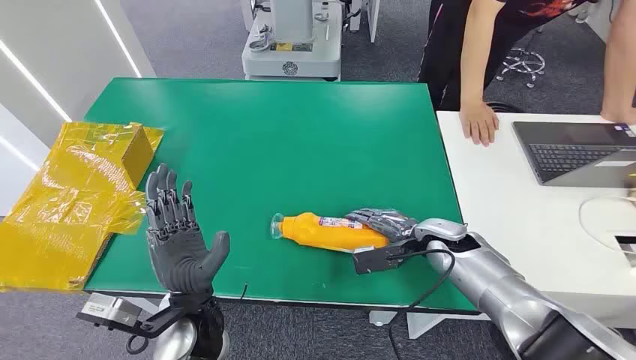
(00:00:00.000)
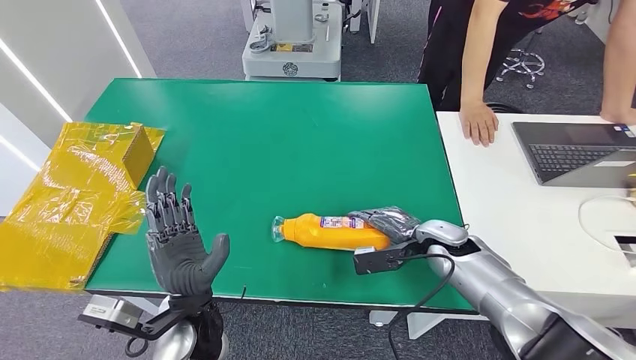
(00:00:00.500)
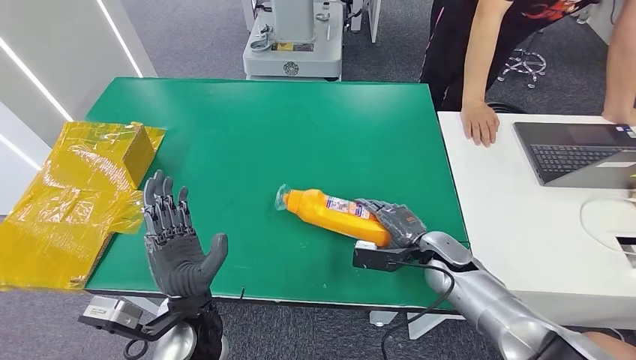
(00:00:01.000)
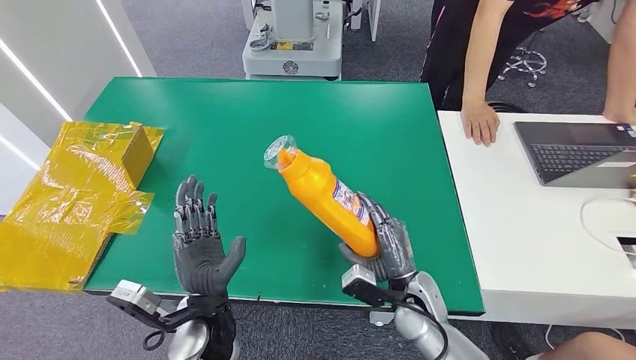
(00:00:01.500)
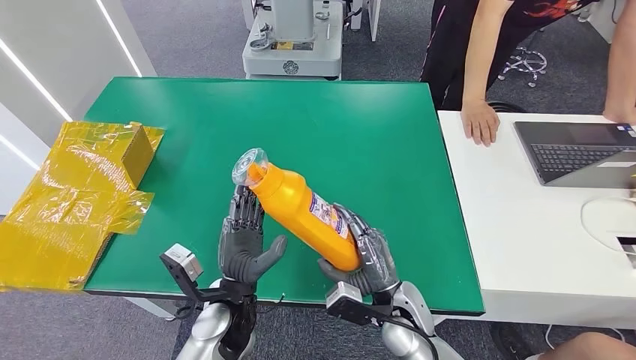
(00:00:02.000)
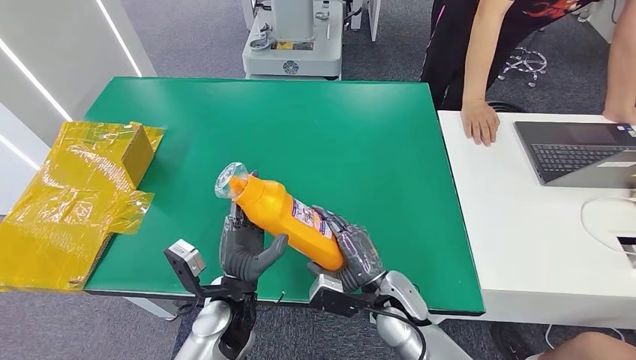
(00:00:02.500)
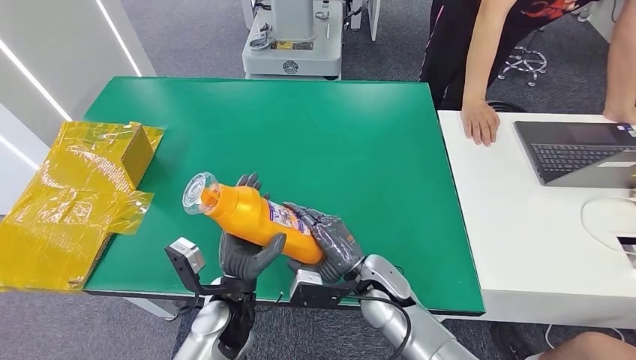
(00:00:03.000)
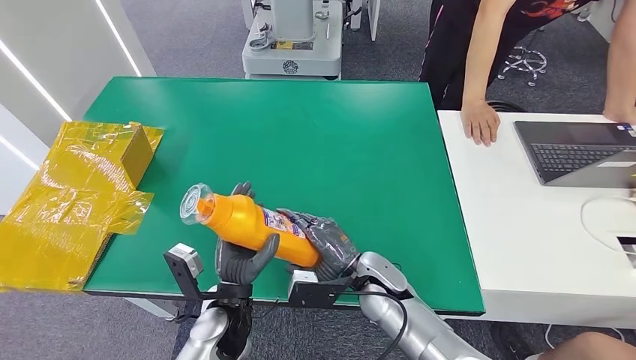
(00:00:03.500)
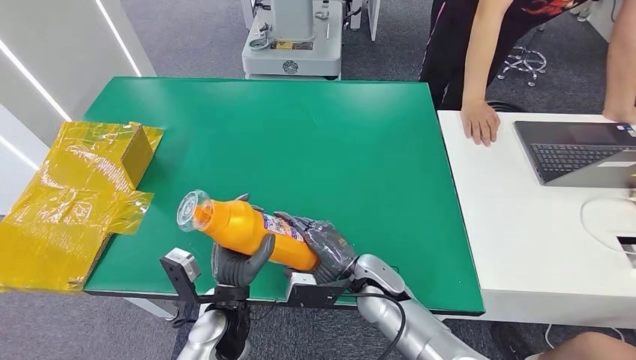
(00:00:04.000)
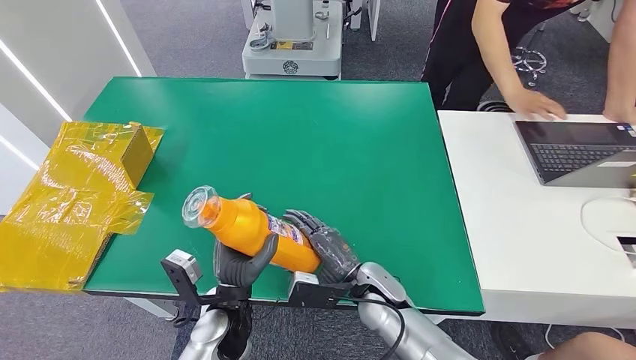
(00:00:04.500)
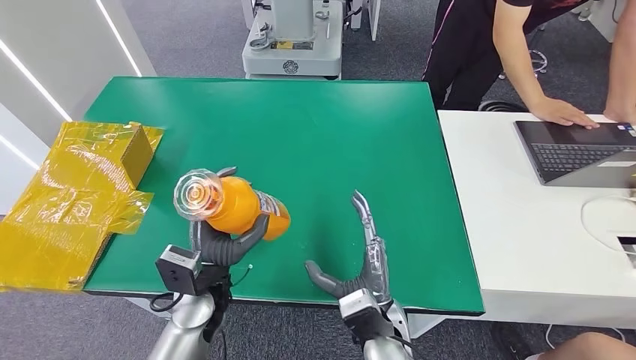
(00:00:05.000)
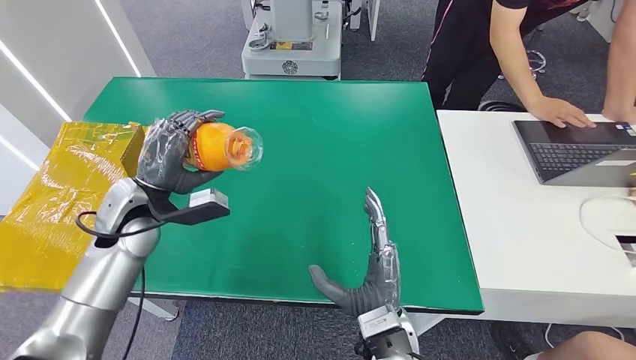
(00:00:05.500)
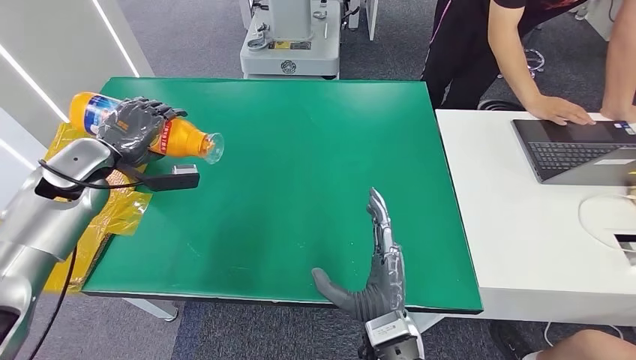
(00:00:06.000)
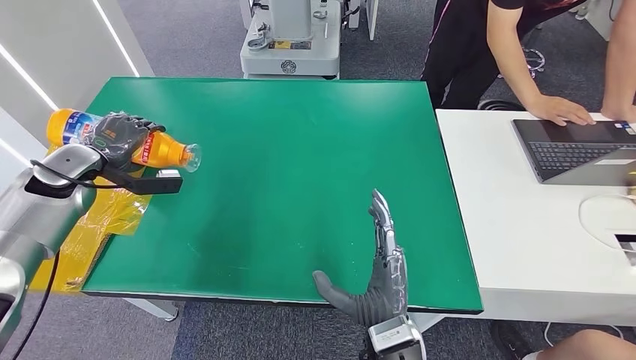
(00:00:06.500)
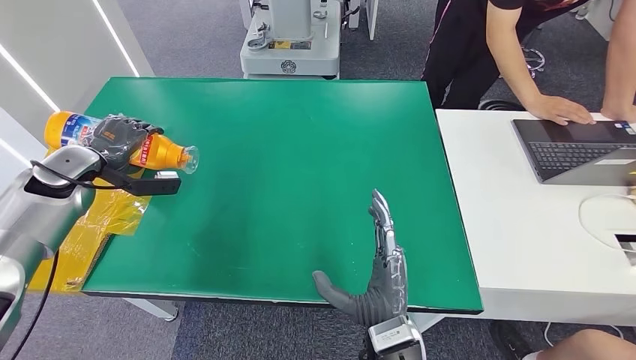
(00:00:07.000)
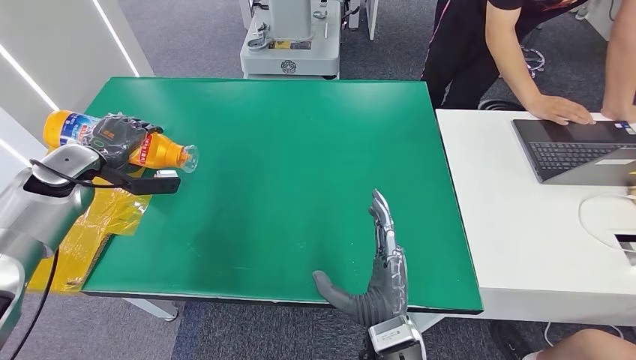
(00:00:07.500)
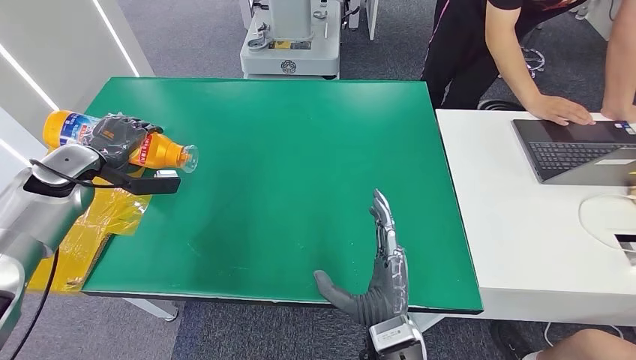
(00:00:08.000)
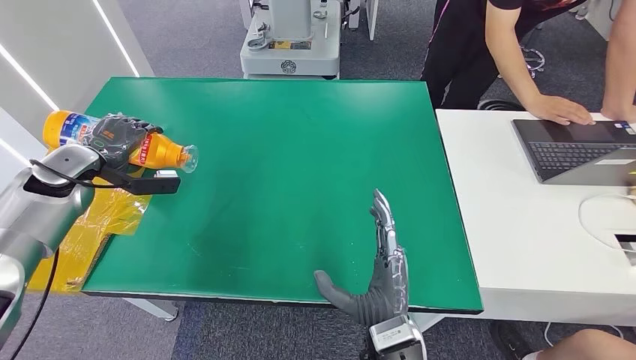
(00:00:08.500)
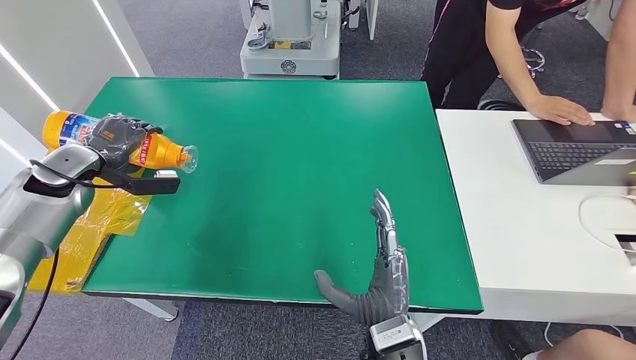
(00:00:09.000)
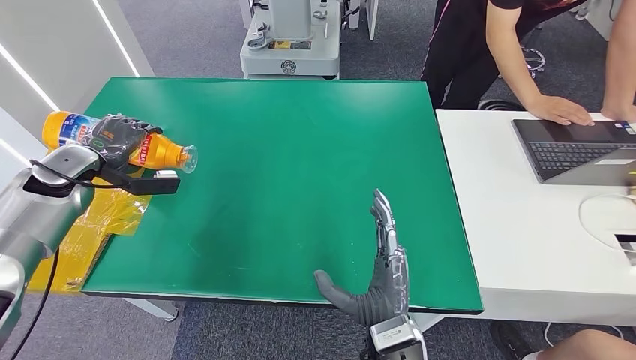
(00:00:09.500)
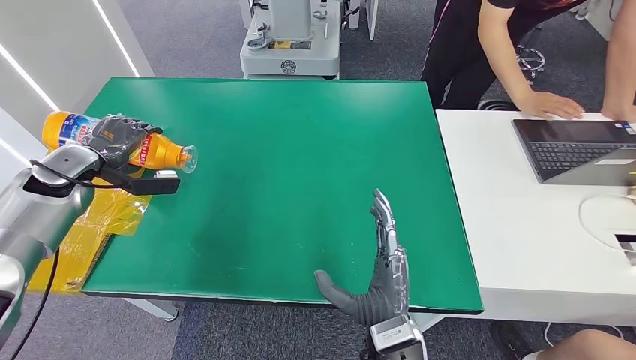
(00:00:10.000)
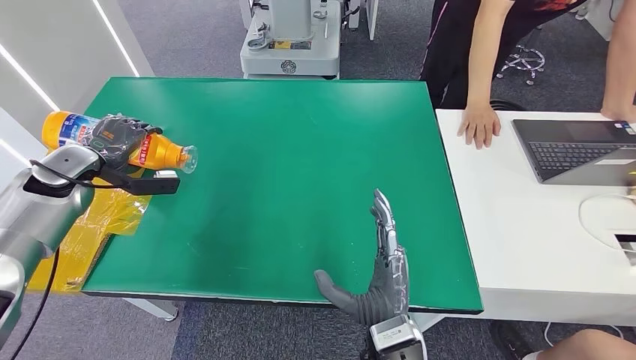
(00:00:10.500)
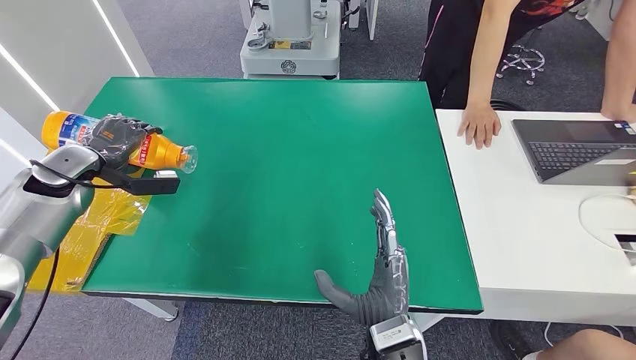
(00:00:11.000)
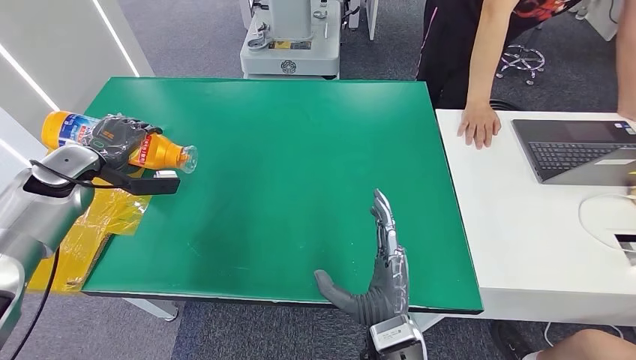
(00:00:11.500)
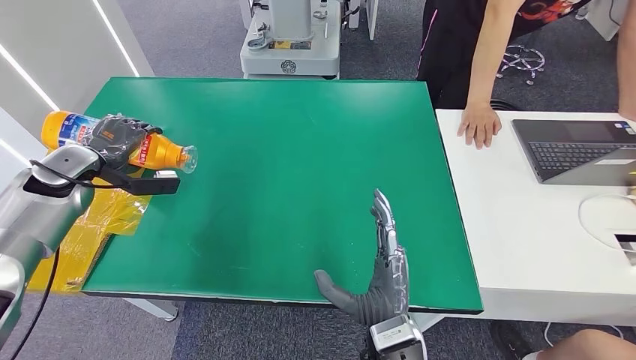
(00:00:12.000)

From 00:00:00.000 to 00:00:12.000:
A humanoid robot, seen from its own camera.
Step, from 00:00:00.000 to 00:00:03.000: Pick up the bottle from the table.
From 00:00:02.000 to 00:00:04.000: The right hand shifts by roughly 5 cm.
From 00:00:06.000 to 00:00:08.000: The left hand changes place by about 5 cm.
From 00:00:08.000 to 00:00:12.000: Both hands stay about where they are.

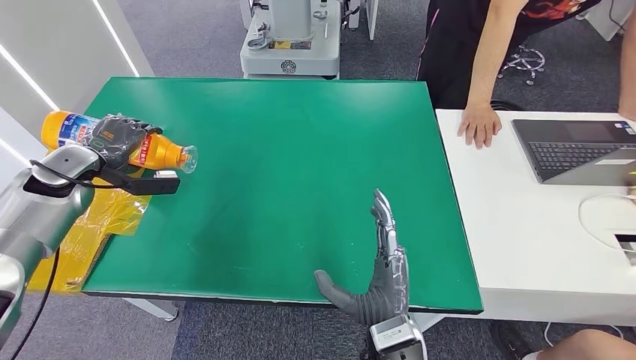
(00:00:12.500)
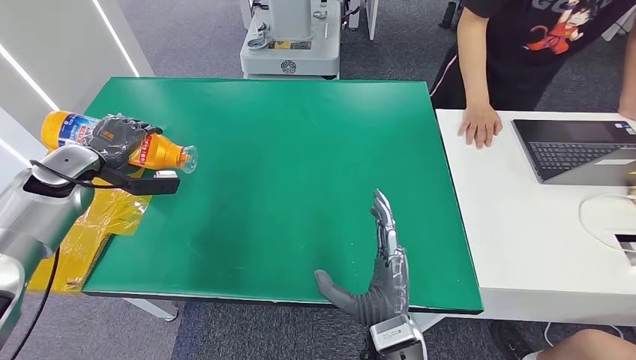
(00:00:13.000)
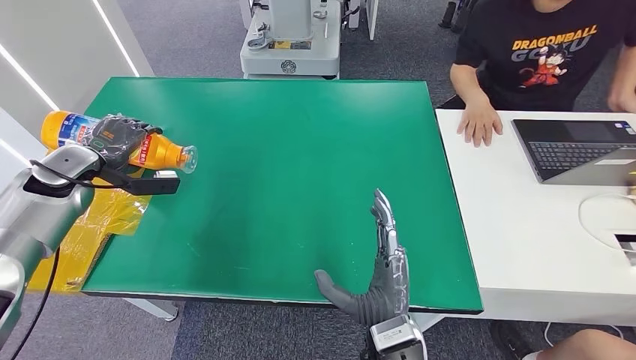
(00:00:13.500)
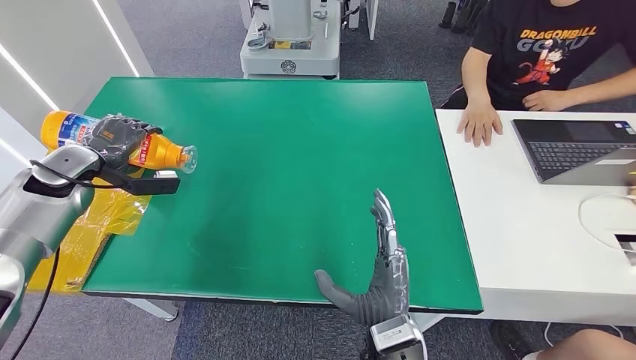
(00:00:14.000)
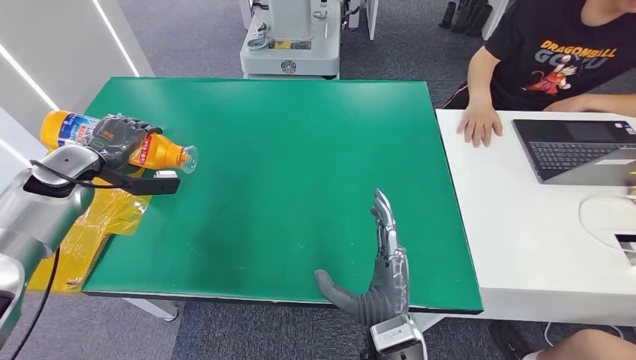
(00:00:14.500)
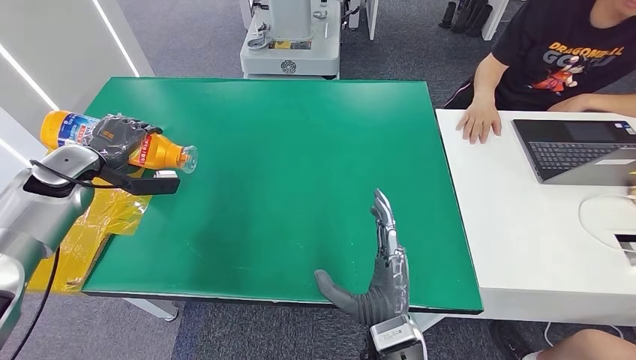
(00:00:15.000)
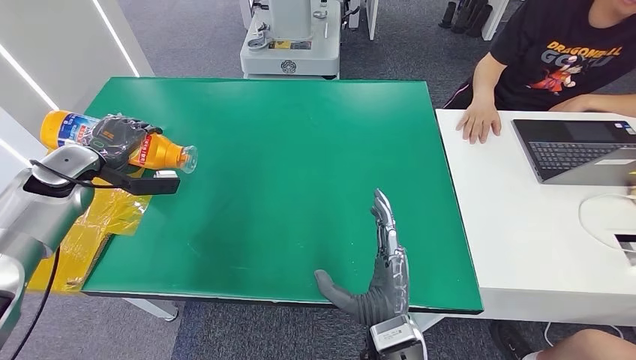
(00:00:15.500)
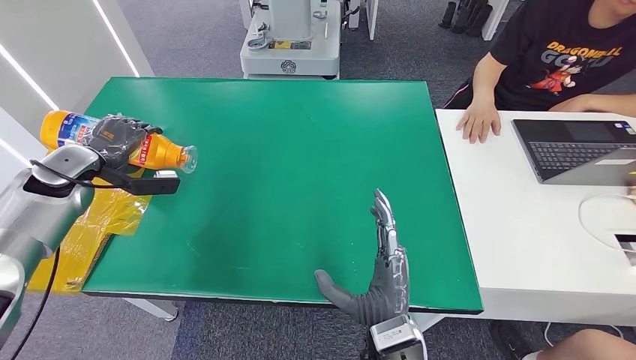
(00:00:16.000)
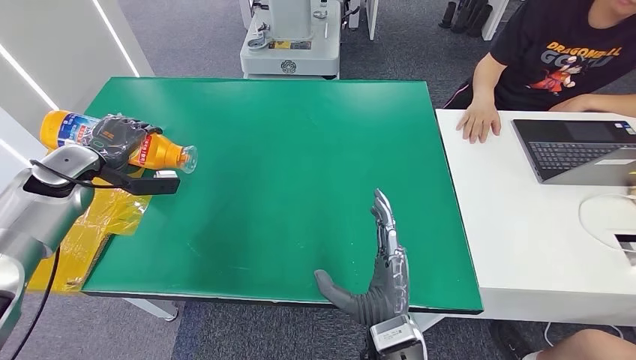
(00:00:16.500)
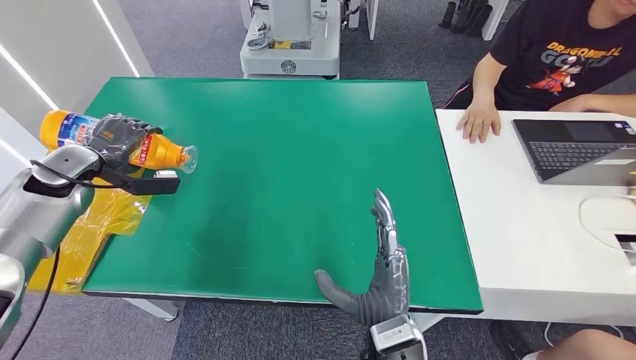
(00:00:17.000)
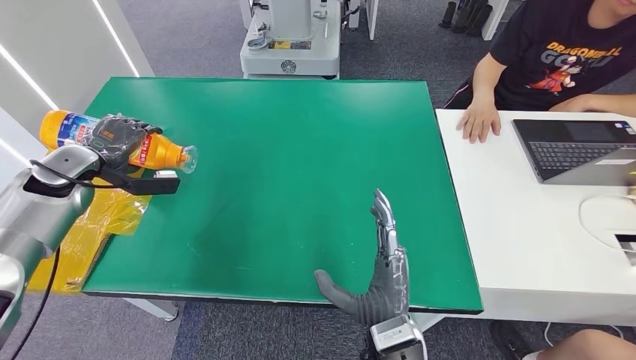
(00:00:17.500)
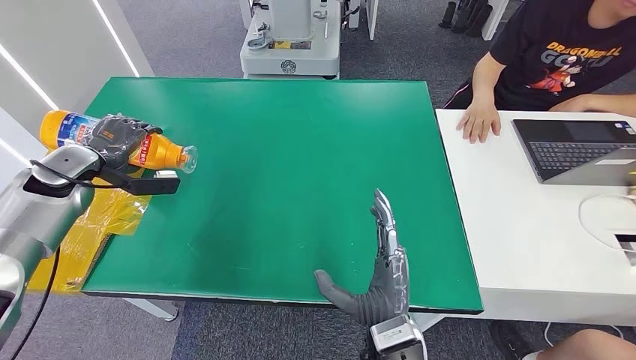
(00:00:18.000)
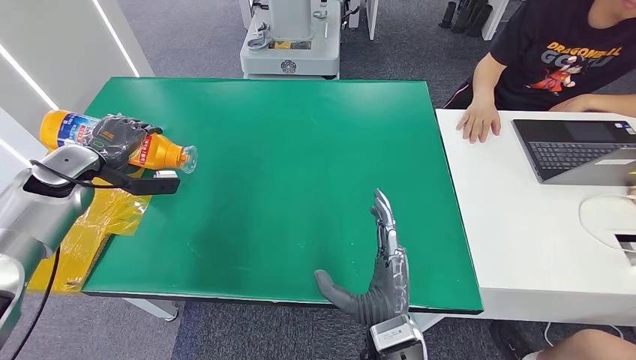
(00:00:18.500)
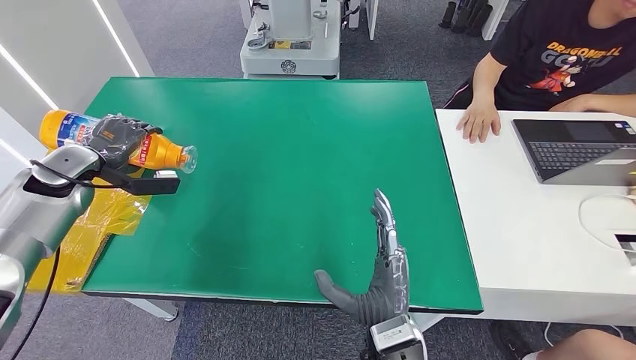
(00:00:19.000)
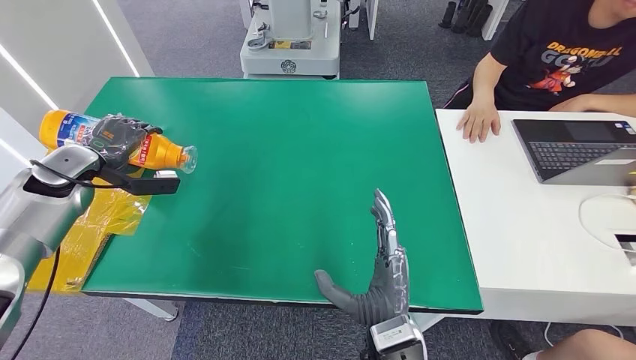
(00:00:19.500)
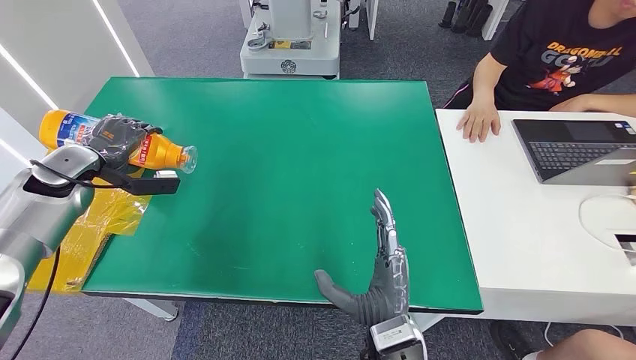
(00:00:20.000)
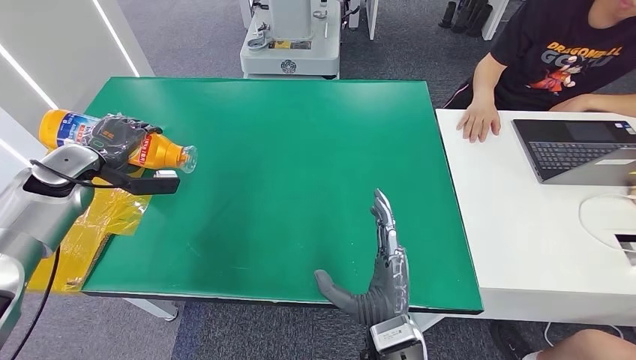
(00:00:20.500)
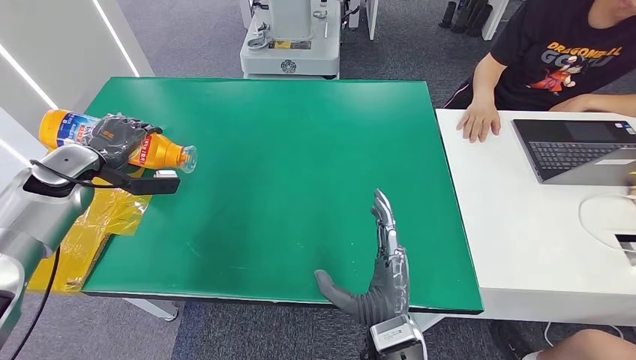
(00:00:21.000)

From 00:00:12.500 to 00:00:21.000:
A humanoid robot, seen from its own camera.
From 00:00:12.500 to 00:00:21.000: The two hands keep their place.
